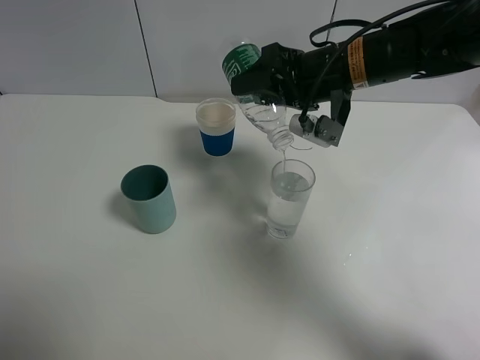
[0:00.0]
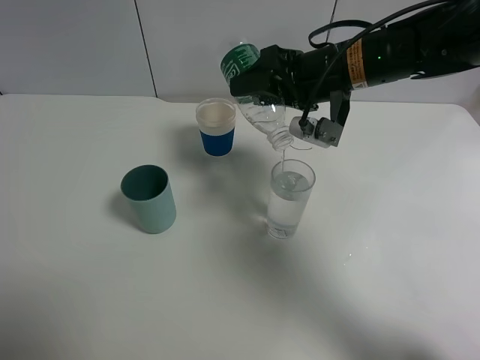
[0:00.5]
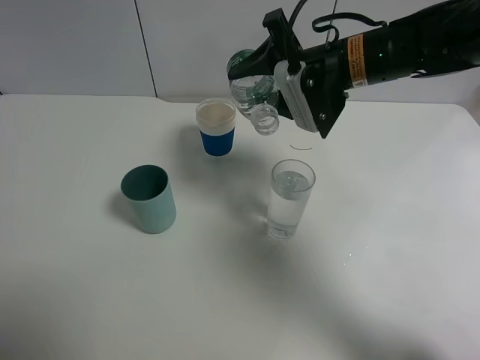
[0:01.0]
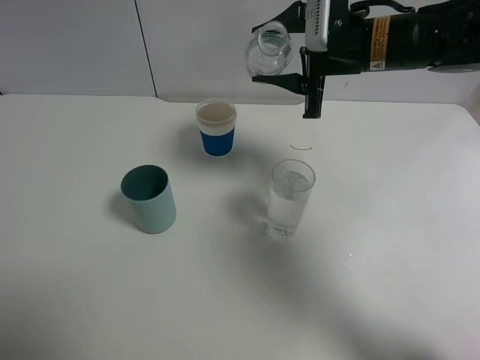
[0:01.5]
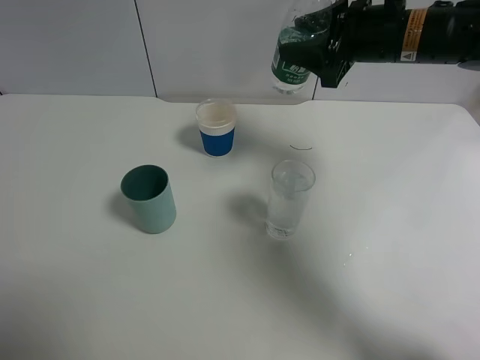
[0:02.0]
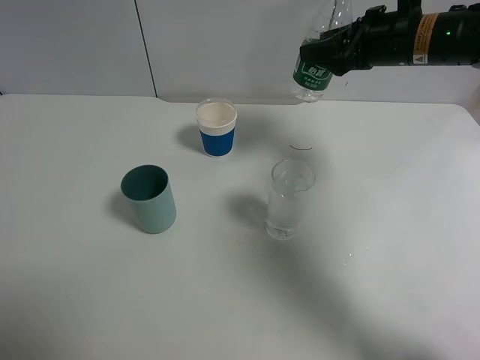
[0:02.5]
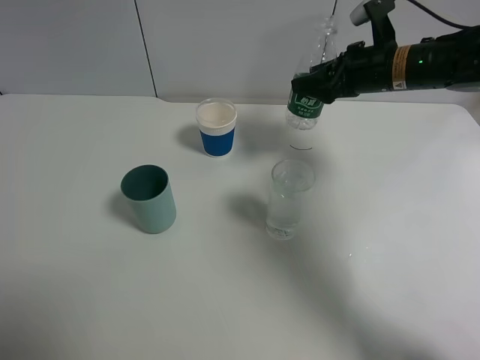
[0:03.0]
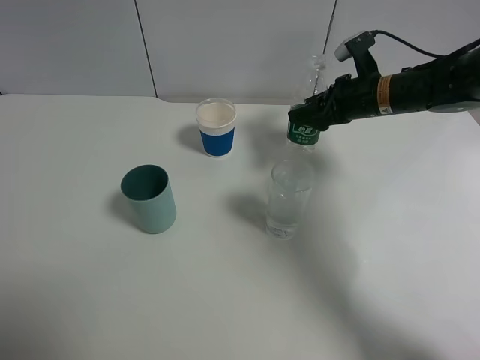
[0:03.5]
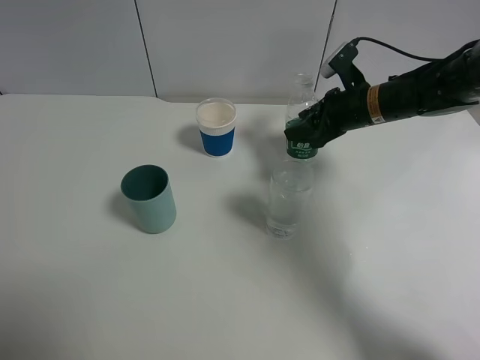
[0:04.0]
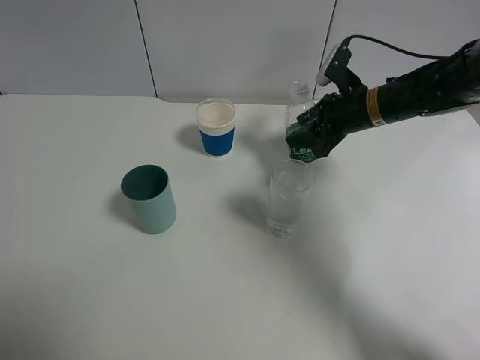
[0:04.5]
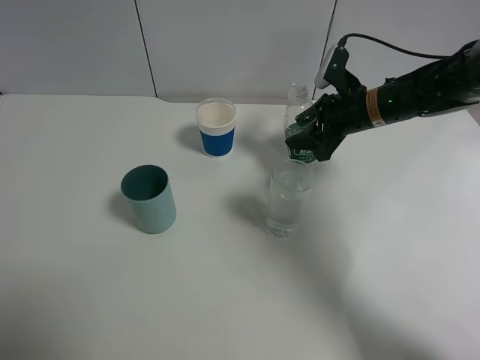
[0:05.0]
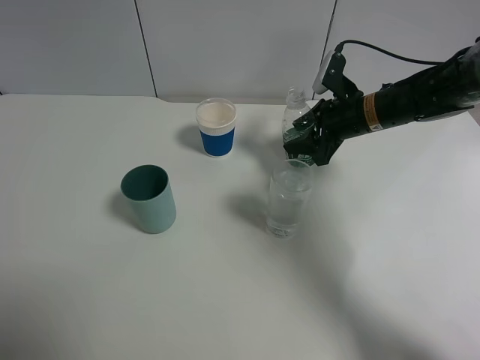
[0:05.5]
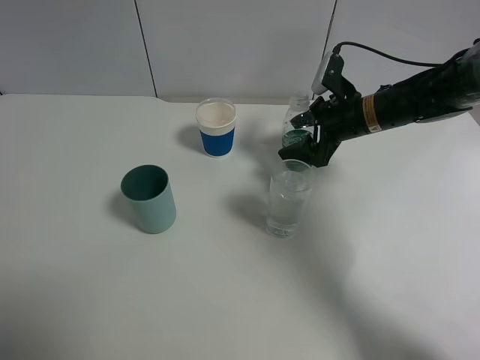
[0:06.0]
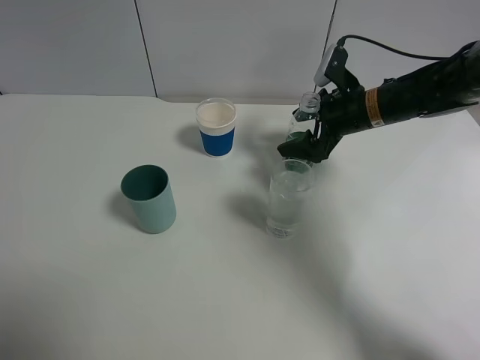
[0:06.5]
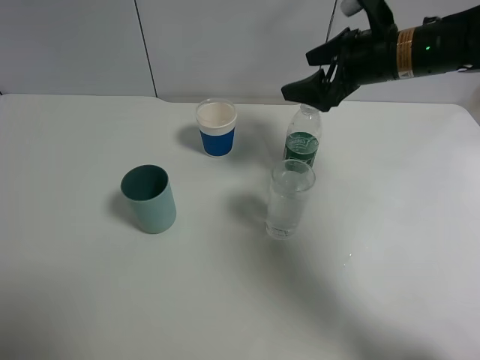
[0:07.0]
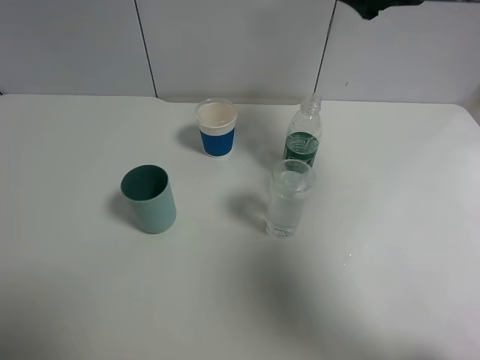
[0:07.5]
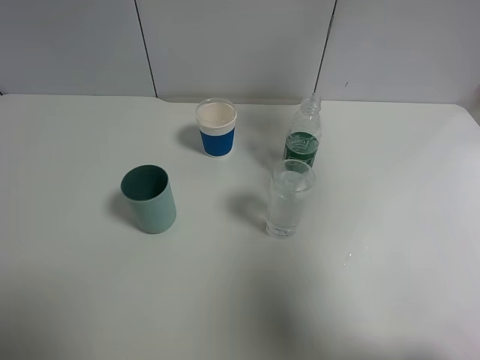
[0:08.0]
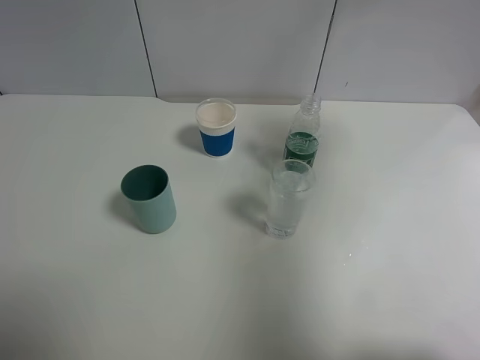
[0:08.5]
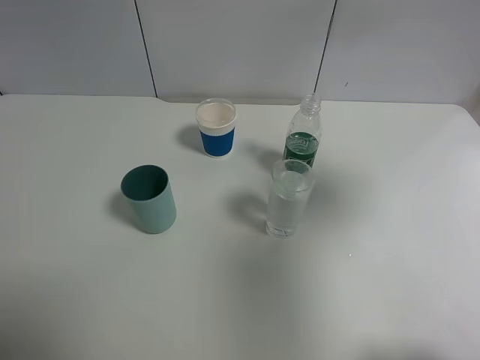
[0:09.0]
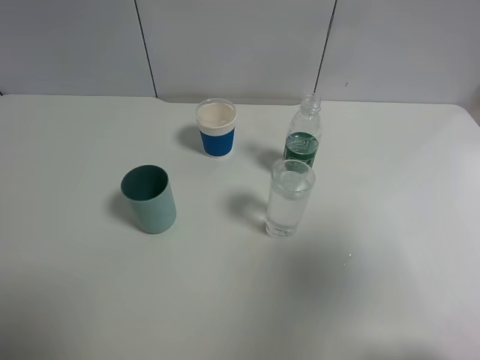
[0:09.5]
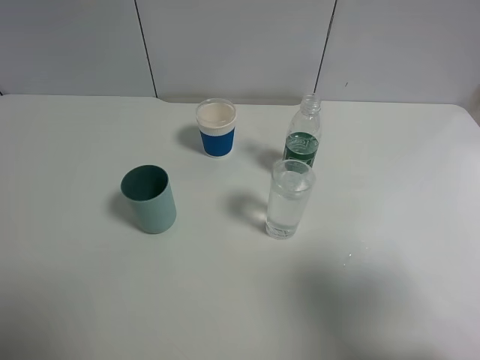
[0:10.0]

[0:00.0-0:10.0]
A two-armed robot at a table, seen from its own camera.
Task of the whole recording: use a gripper to hold the bottle of the drink and pour it into a random cup.
Step, 0:01.0 to 0:06.0: Place the mineral water bottle on the table with the right gripper.
0:00.0 to 0:02.0: The right gripper moves to the right, about 5 cm.
0:02.0 to 0:04.0: The right gripper heads downward, covering about 10 cm.
0:04.0 to 0:06.0: The right gripper opens its fingers.
0:06.0 to 0:08.0: The right gripper shifts some 25 cm upward.
0:08.0 to 0:10.0: The right gripper travels backward by some 30 cm.

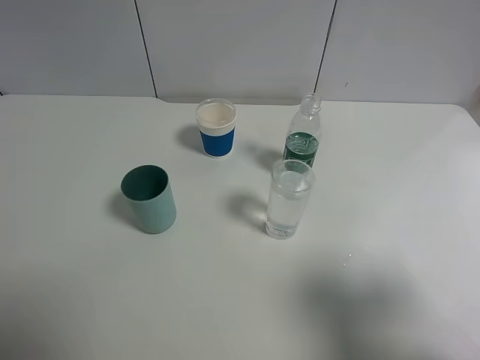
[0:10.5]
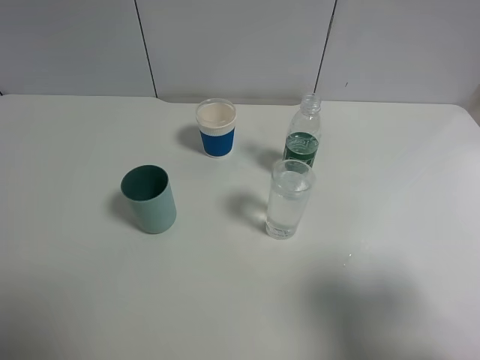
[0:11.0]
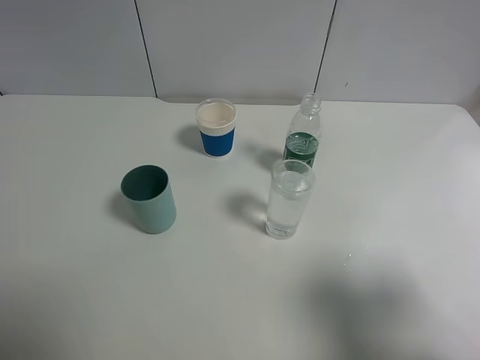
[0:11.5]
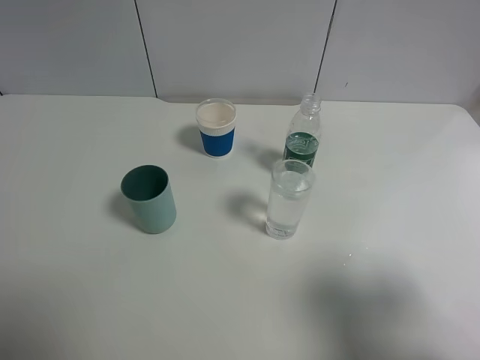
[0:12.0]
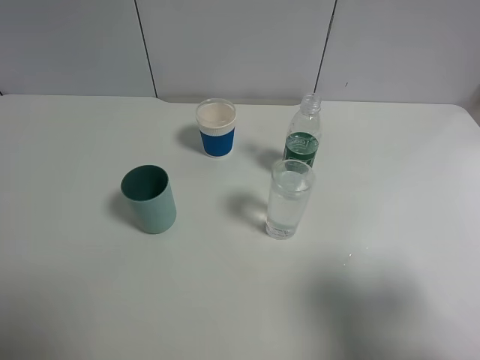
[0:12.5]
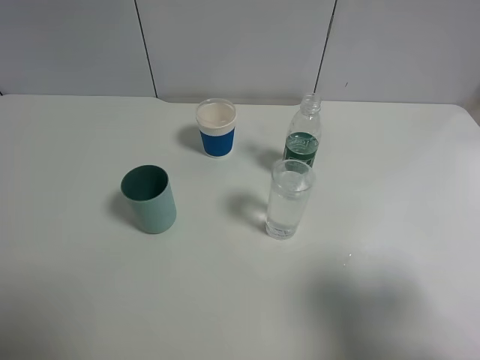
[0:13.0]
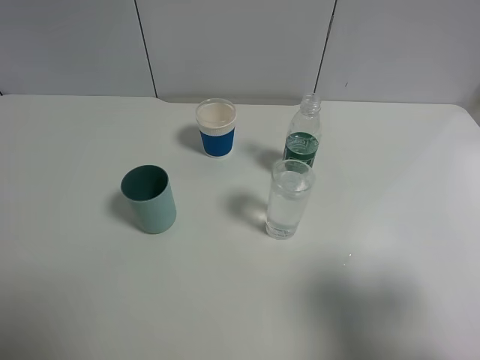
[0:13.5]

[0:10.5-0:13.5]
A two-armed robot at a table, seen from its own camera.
Task of the whole recording: use a gripper to hold the bottle of the drink and pour it into a random cup.
0:10.5 to 0:13.5: Both grippers stay put.
